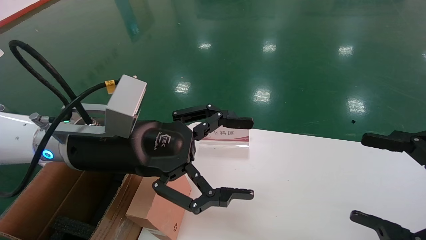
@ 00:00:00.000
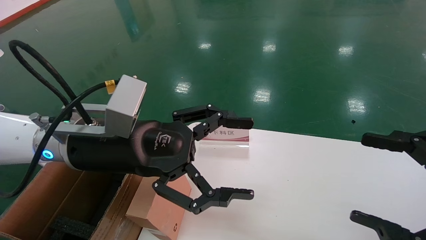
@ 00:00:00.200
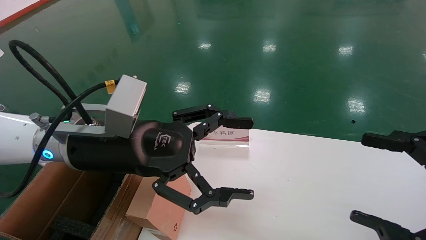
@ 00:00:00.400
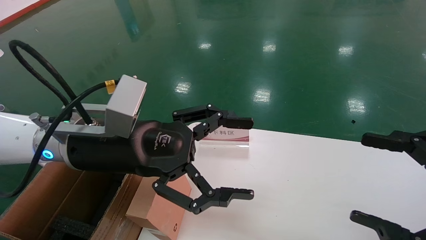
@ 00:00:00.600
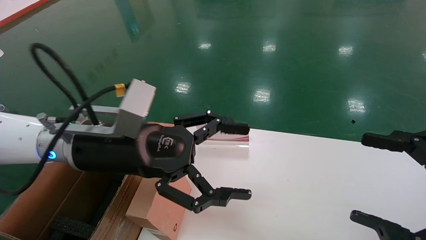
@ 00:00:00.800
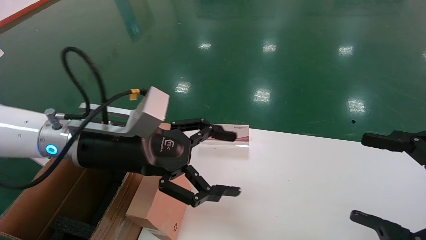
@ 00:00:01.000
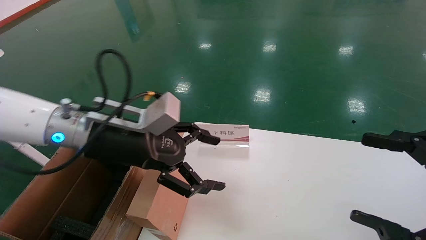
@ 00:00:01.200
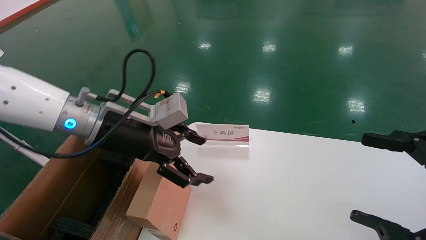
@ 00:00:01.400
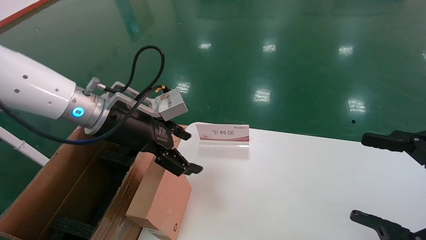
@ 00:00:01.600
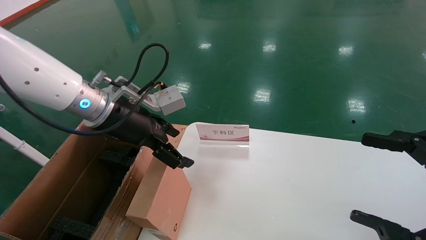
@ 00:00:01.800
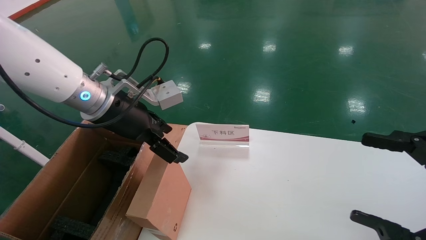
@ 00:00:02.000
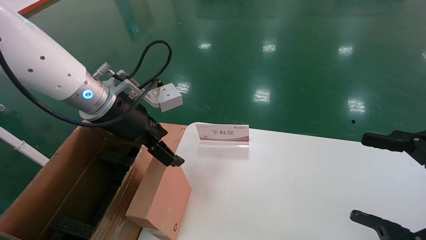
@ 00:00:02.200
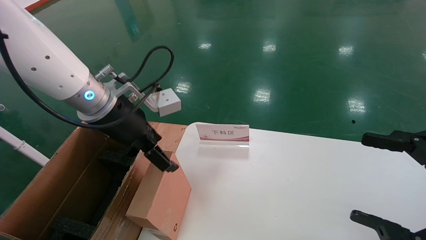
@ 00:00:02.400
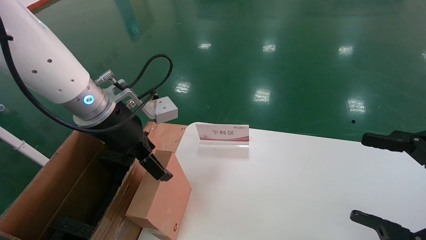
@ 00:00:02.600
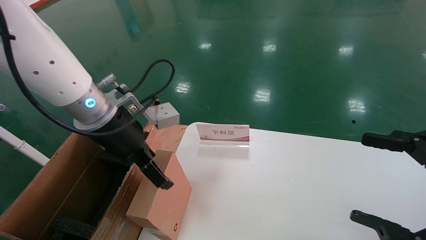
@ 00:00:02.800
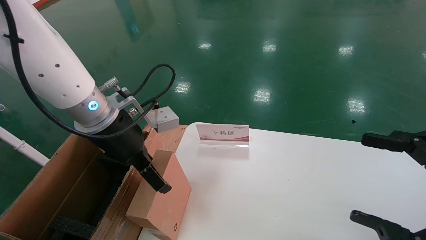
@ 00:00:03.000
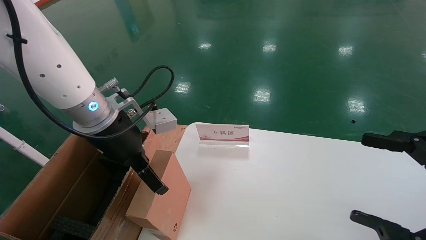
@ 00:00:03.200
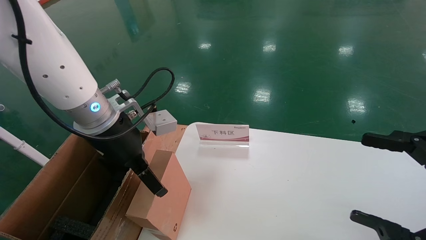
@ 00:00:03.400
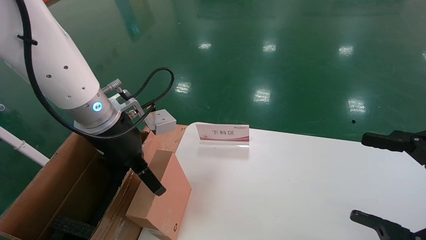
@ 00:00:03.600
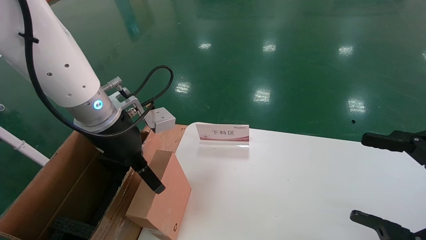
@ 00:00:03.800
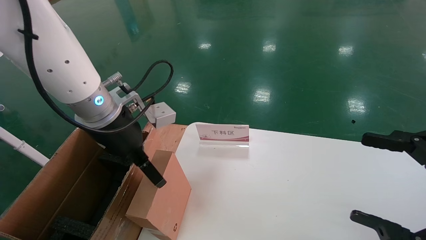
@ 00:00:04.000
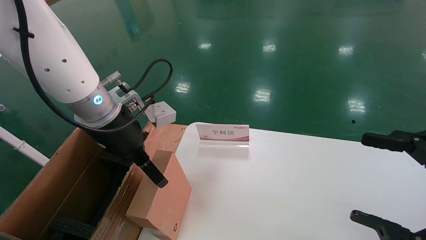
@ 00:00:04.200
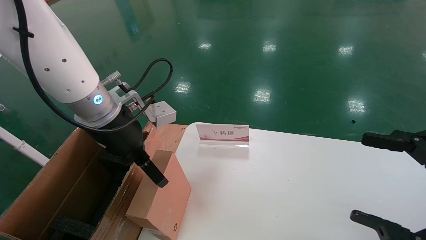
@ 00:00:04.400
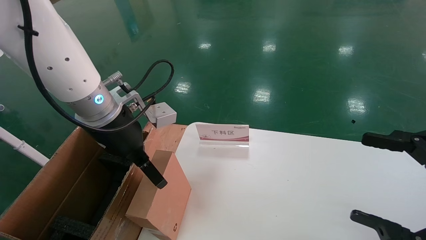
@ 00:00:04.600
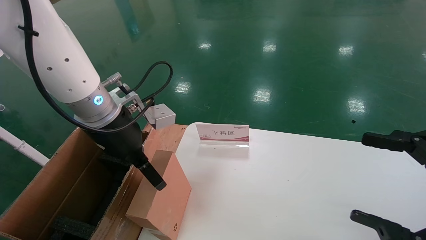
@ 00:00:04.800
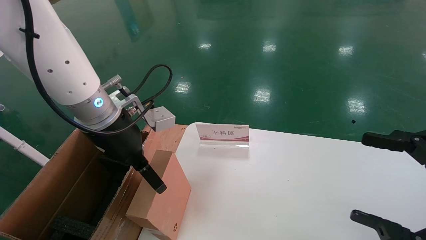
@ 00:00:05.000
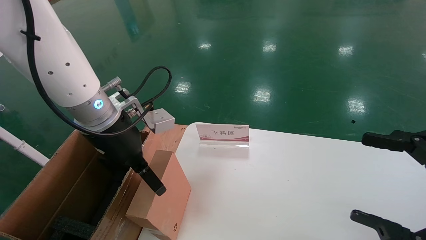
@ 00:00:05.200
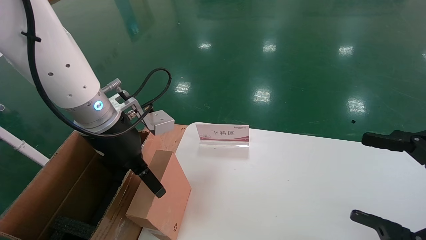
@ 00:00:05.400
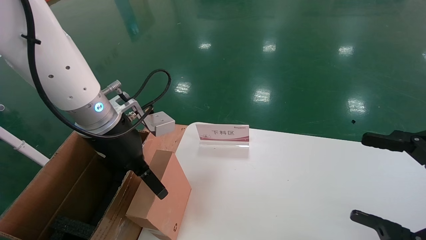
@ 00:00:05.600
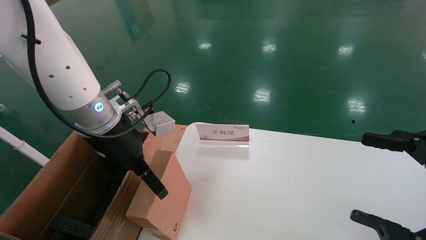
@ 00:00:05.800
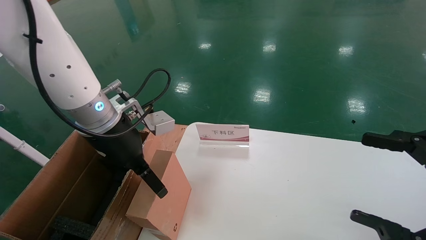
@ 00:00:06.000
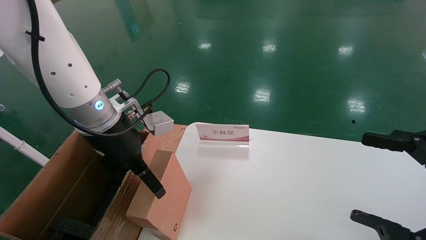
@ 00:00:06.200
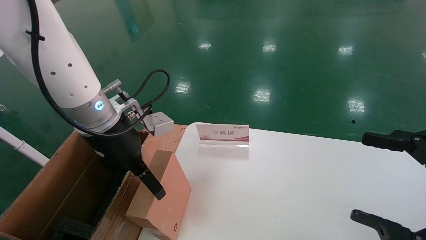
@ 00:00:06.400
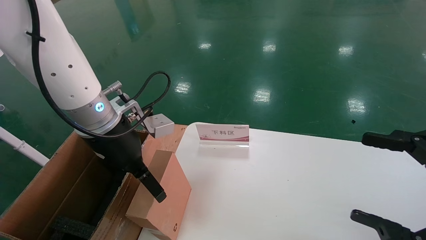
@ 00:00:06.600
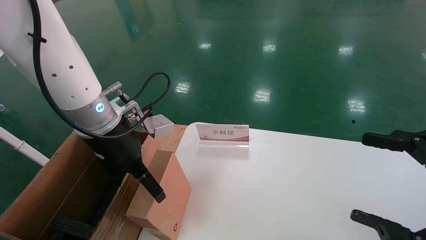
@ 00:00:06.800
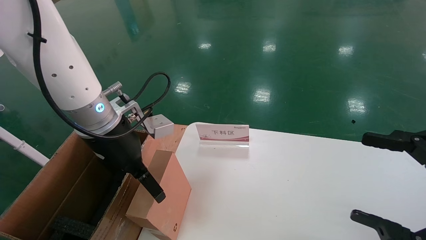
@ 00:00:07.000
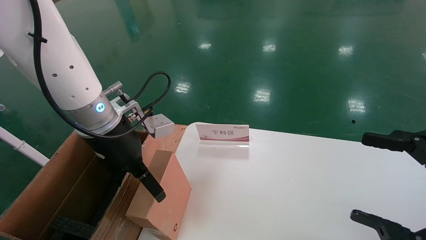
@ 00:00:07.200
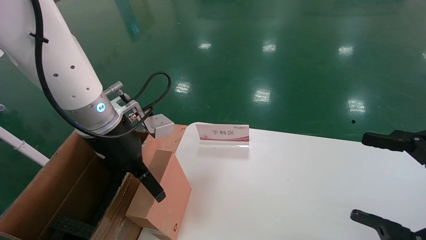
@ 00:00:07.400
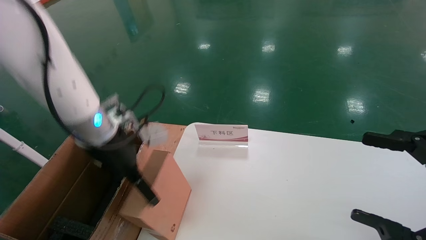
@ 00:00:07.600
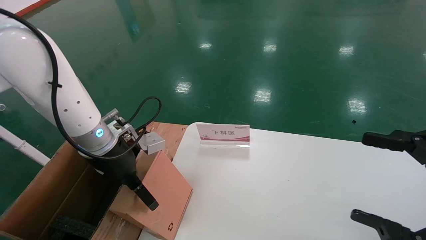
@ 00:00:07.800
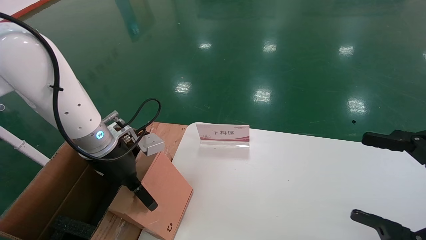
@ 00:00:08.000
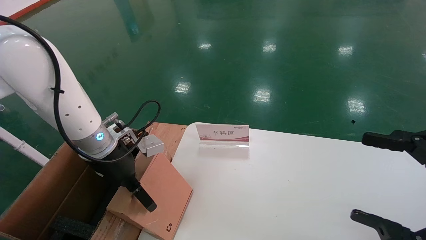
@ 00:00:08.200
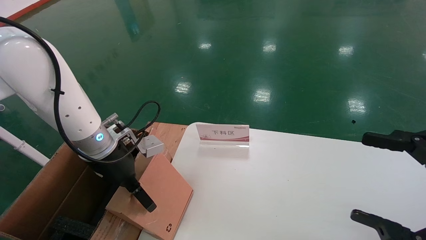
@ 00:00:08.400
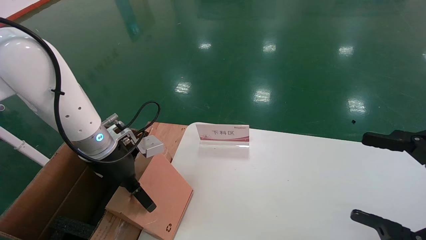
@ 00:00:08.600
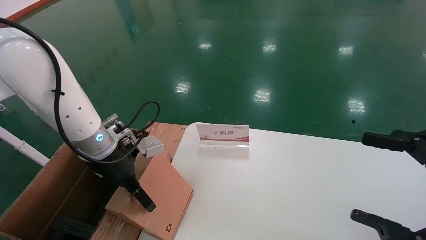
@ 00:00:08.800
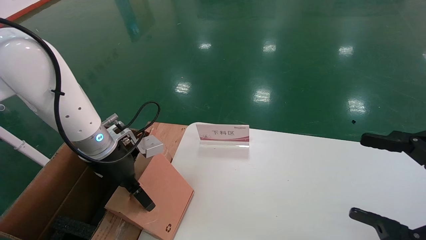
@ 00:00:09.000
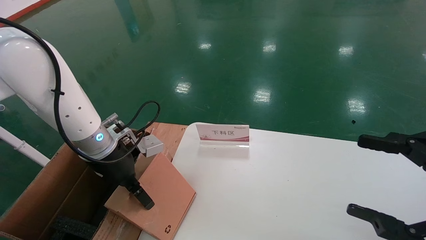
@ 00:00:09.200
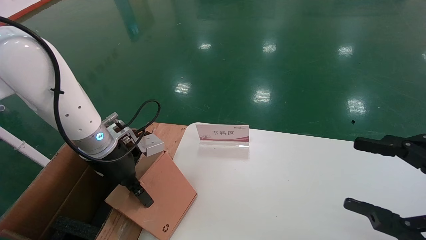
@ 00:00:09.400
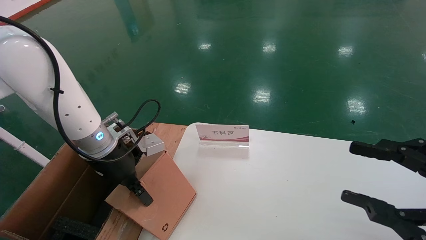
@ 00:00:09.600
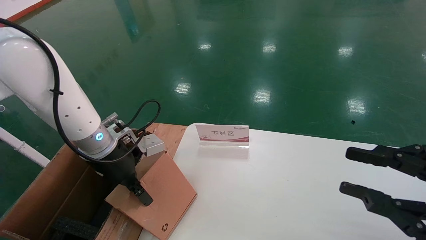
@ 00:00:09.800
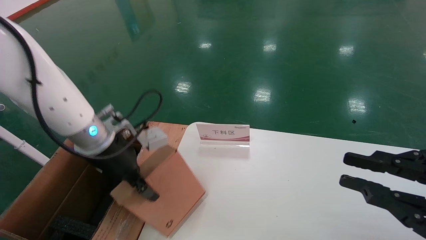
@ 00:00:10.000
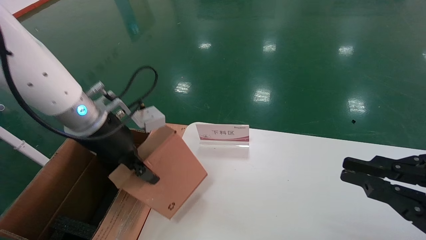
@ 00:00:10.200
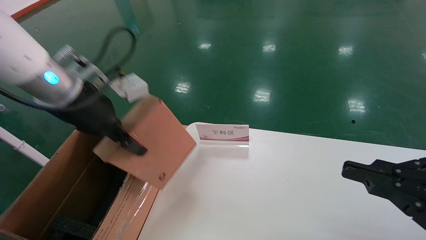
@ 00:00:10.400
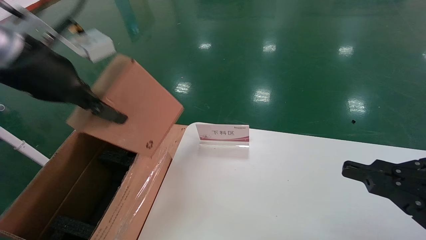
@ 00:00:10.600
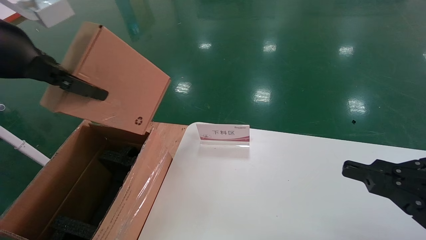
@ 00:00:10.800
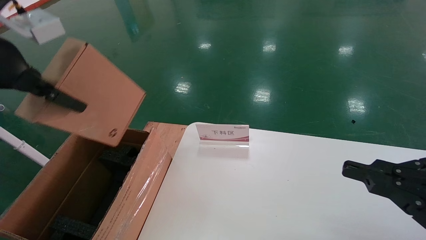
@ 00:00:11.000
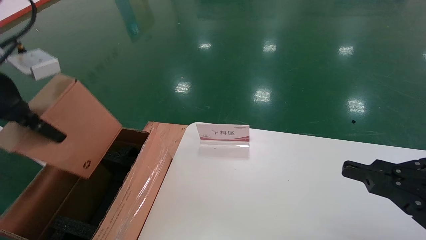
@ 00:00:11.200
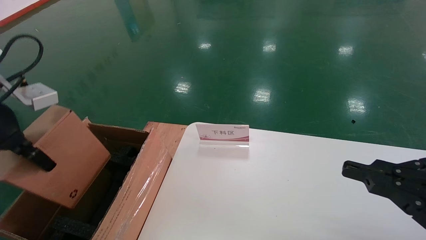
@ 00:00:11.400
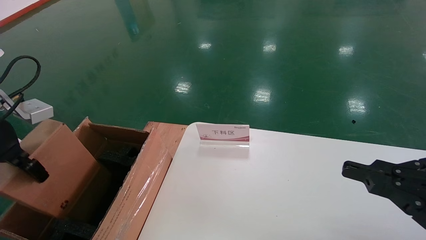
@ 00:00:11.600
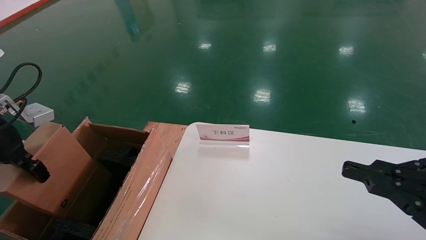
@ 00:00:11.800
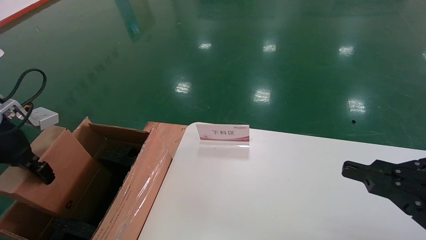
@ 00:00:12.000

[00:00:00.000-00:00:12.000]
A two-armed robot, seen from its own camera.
Task of the whole recording: pick up the small cardboard box and load it into the large cardboard box.
Step, 00:00:01.200 to 00:00:08.000: Pick up the mouse and power cord box.
00:00:00.000 to 00:00:01.600: The left gripper moves forward, about 5 cm.
00:00:03.000 to 00:00:06.000: There are only small adjustments of the grippers.
00:00:06.000 to 00:00:07.600: The left gripper moves about 5 cm.
00:00:07.600 to 00:00:09.000: The grippers make only small movements.
00:00:09.000 to 00:00:10.400: The left gripper shifts approximately 15 cm upward, and closes up, while the right gripper closes.
00:00:10.400 to 00:00:12.000: The left gripper is displaced to the left and downward by approximately 15 cm.

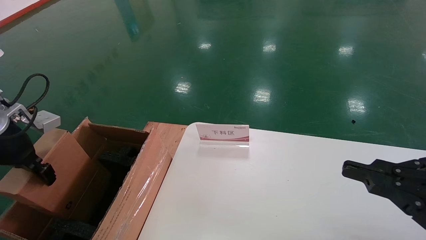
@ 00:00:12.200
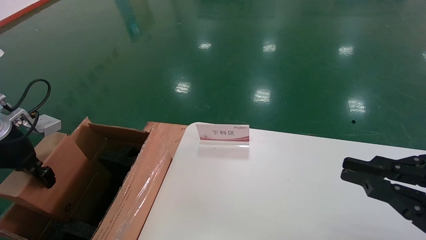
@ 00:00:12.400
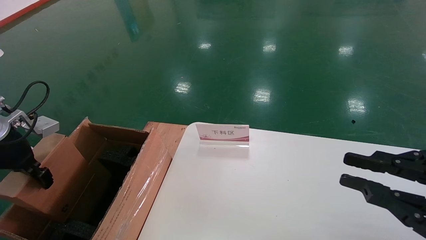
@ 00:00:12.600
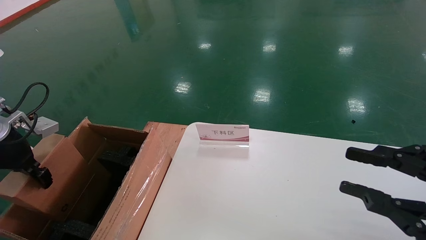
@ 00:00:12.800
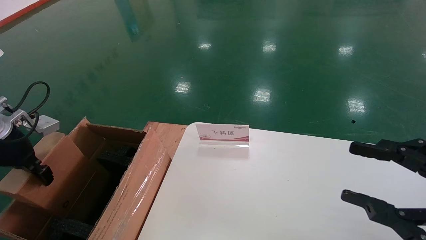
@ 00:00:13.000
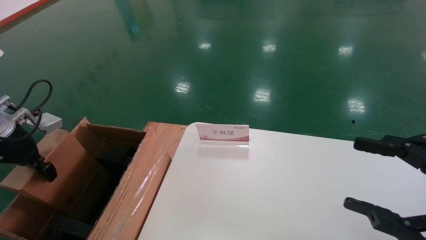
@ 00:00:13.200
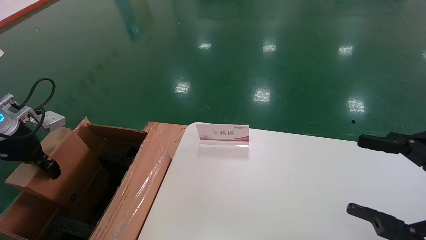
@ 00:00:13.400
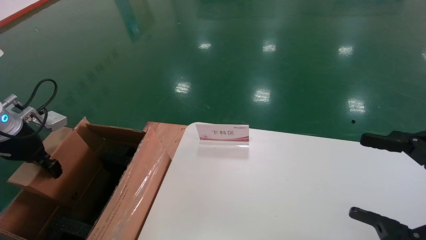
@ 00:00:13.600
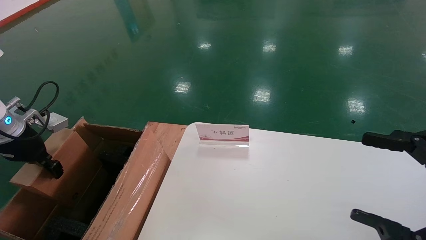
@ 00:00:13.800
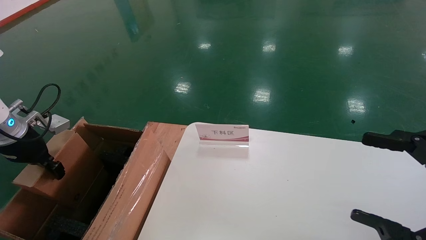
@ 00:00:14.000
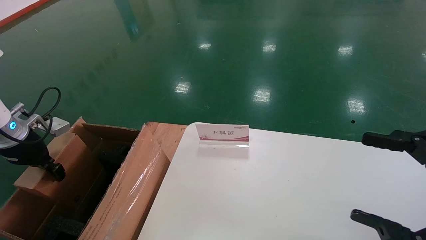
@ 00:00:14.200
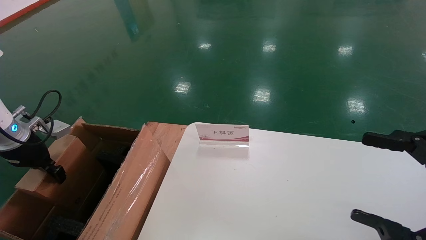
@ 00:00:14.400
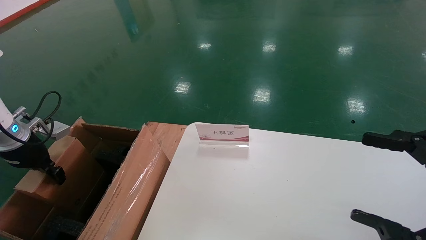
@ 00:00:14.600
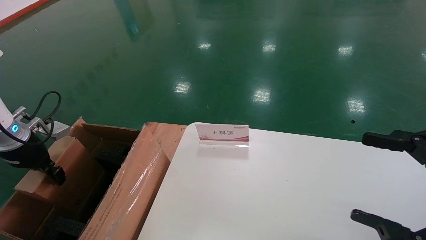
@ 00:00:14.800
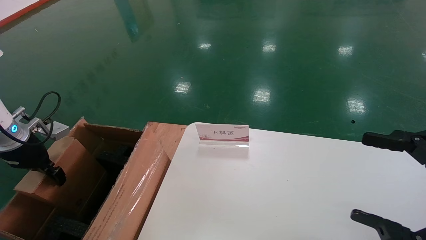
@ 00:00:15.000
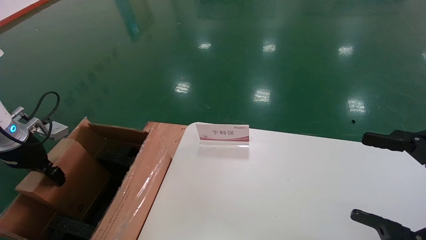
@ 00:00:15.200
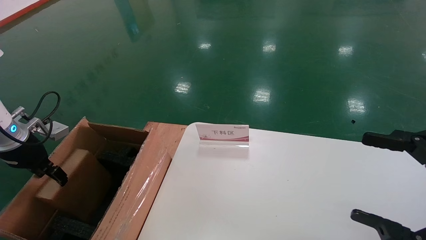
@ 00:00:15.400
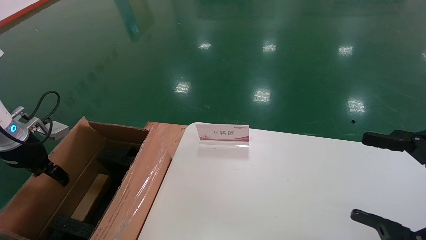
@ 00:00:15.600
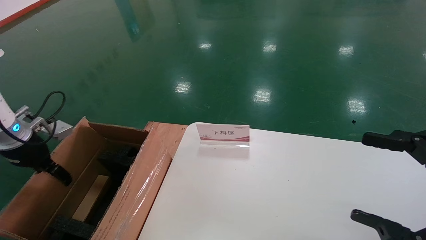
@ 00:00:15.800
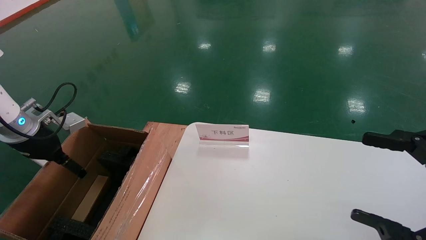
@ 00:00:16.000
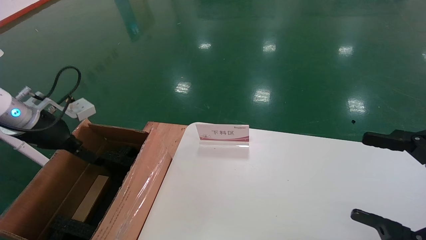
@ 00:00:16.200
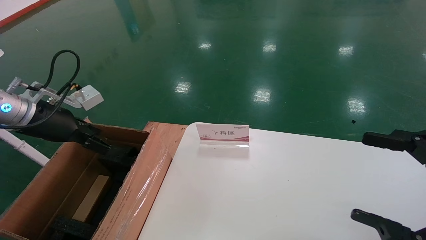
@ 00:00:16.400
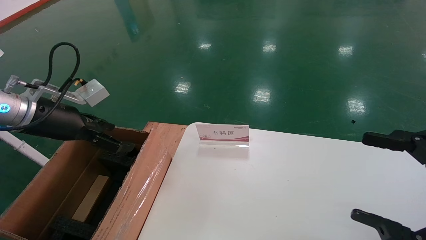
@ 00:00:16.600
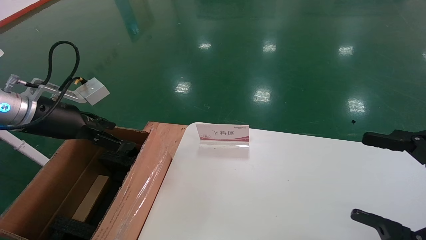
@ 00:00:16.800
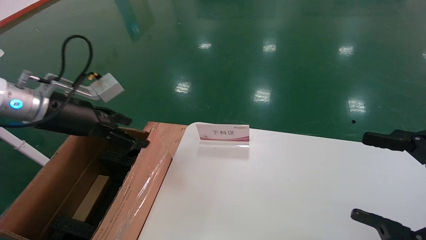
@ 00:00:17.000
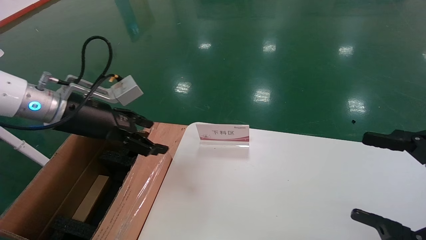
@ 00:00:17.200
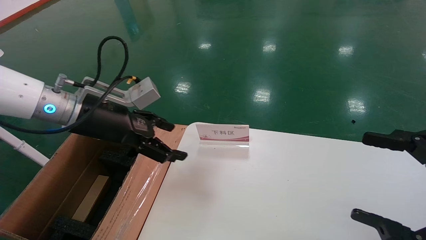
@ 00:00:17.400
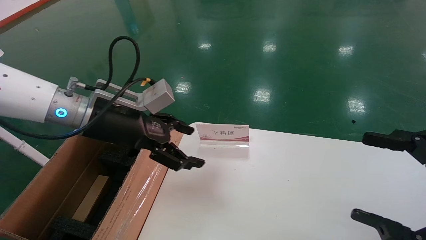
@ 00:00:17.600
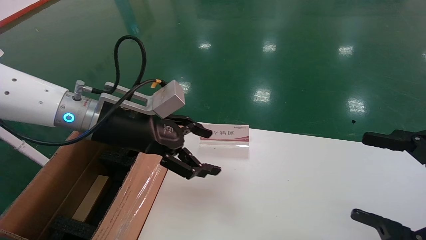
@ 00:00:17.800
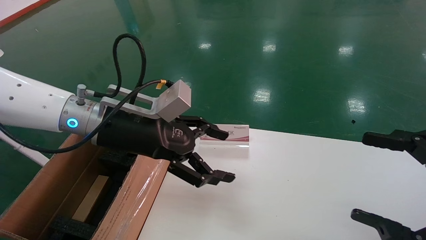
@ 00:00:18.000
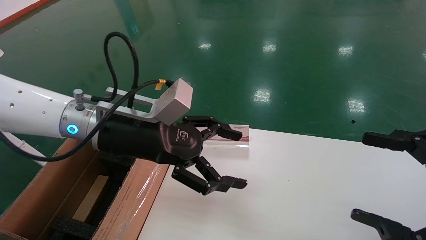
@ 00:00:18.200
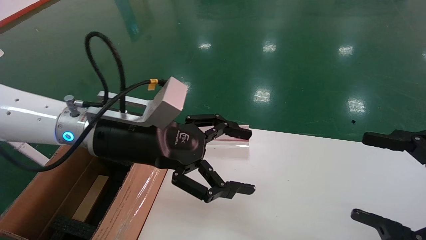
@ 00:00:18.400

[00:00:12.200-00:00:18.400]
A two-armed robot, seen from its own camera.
Task of the whole recording: pick up the small cardboard box and load it into the large cardboard box.
Step, 00:00:12.200 to 00:00:16.000: Place the mouse and power cord box into the case.
00:00:12.200 to 00:00:13.800: The right gripper opens its fingers; the left gripper moves about 5 cm.
00:00:13.800 to 00:00:15.400: The grippers stay close to where they were, moving slightly.
00:00:15.400 to 00:00:16.800: The left gripper is displaced to the right and upward by some 15 cm, and opens its fingers.
00:00:16.800 to 00:00:18.400: The left gripper shifts roughly 20 cm to the right.
